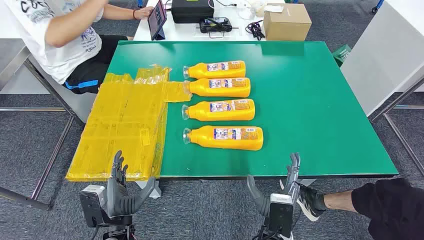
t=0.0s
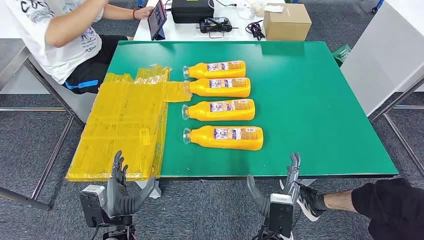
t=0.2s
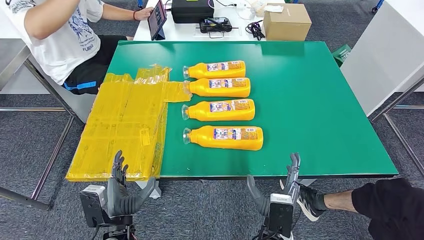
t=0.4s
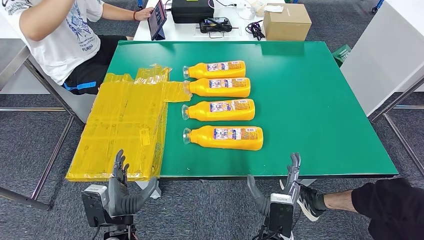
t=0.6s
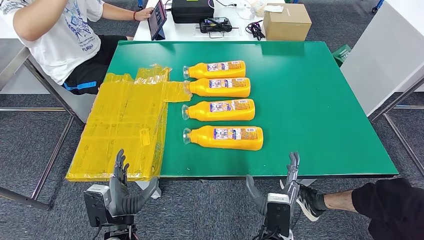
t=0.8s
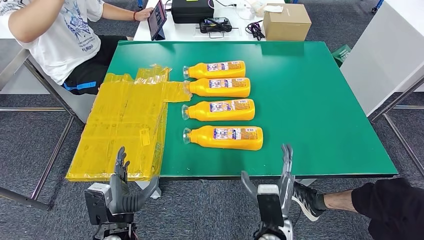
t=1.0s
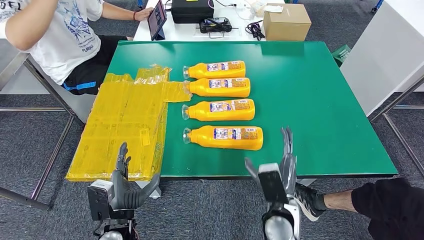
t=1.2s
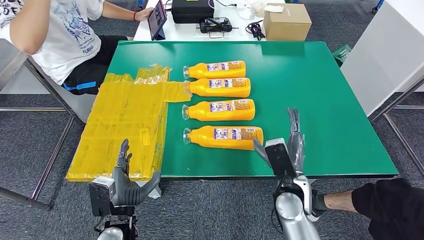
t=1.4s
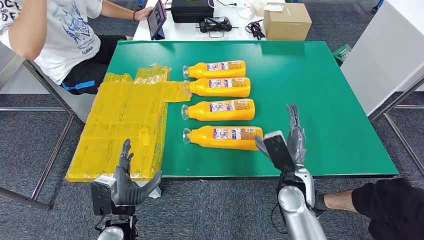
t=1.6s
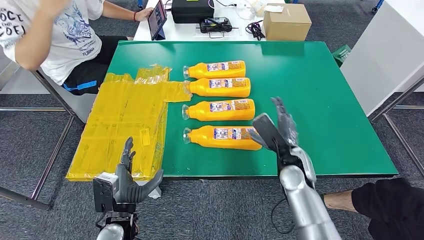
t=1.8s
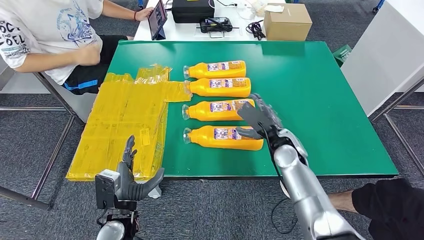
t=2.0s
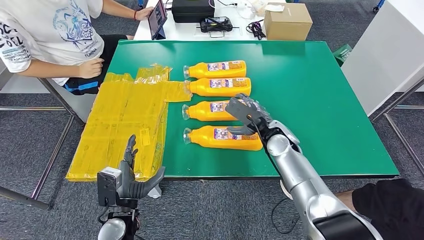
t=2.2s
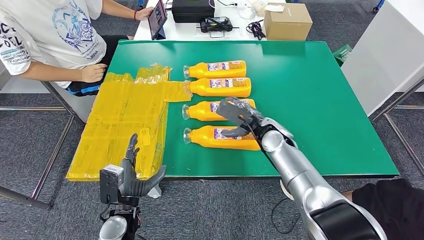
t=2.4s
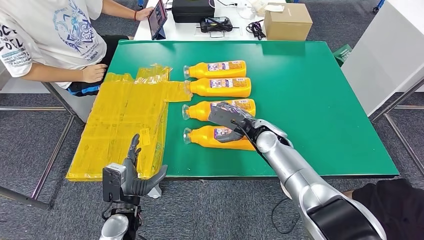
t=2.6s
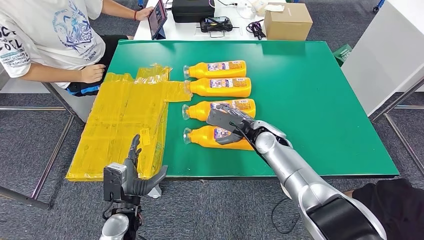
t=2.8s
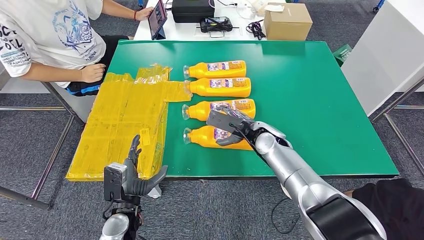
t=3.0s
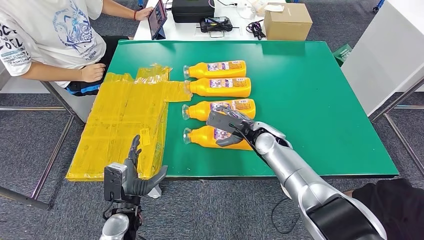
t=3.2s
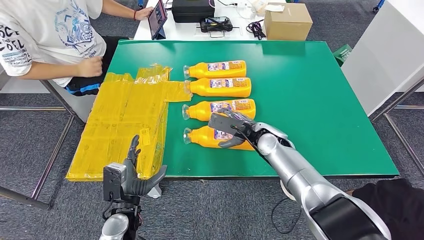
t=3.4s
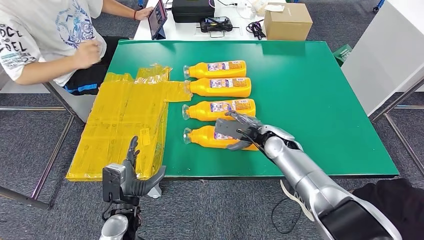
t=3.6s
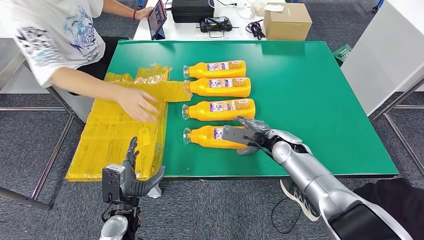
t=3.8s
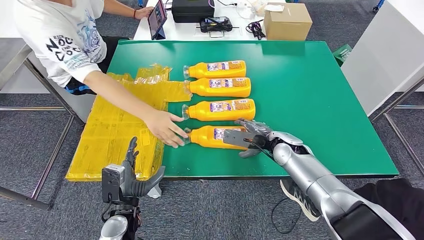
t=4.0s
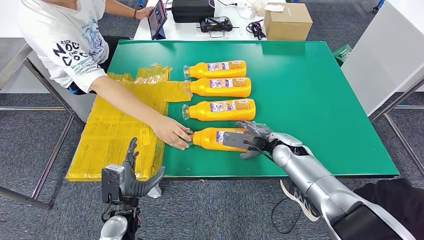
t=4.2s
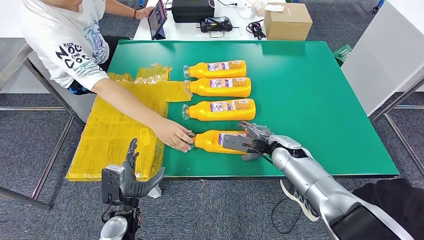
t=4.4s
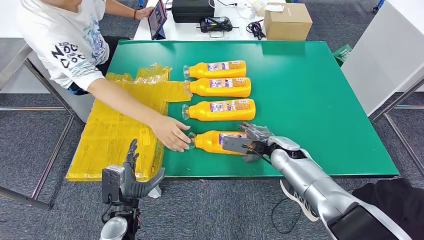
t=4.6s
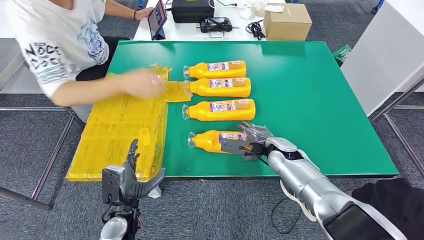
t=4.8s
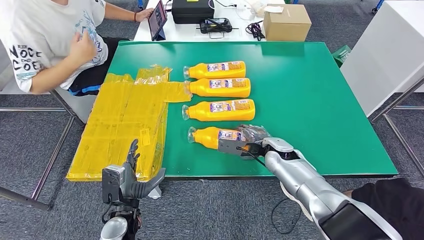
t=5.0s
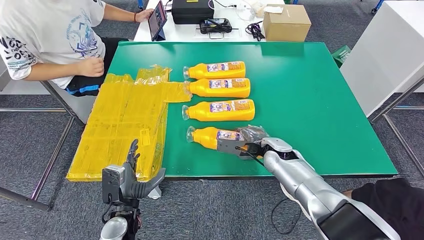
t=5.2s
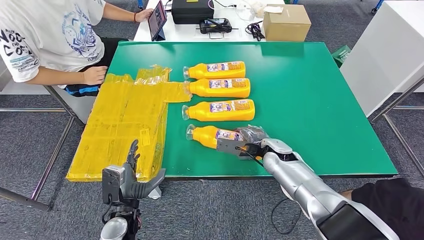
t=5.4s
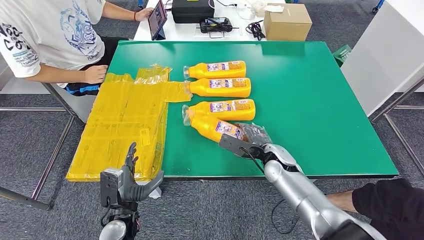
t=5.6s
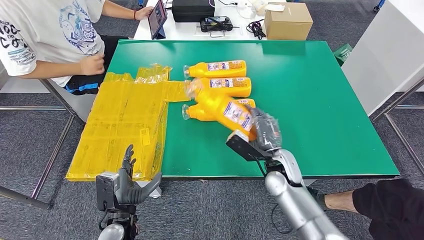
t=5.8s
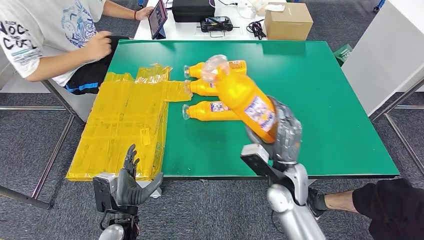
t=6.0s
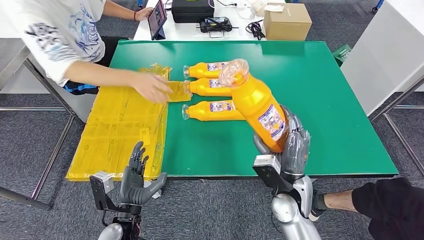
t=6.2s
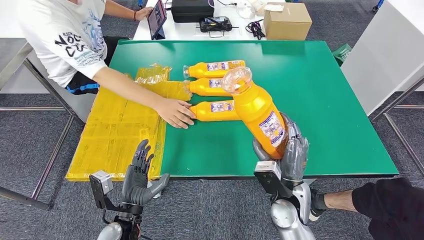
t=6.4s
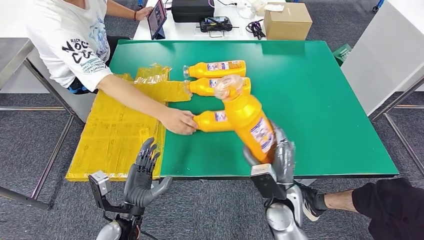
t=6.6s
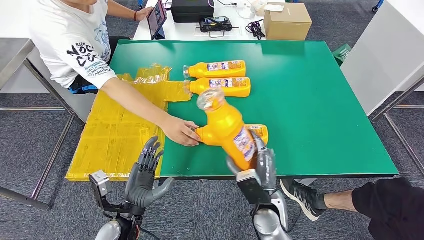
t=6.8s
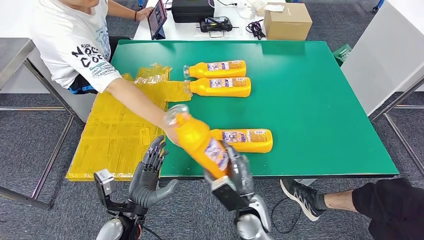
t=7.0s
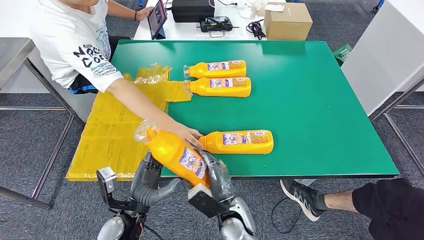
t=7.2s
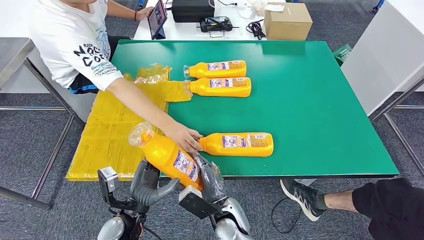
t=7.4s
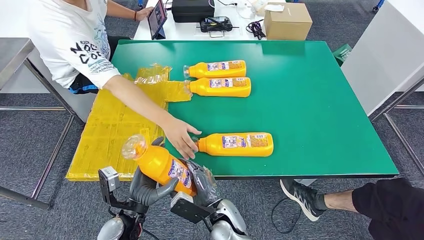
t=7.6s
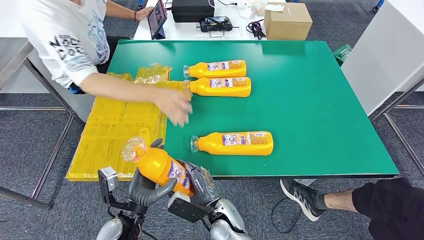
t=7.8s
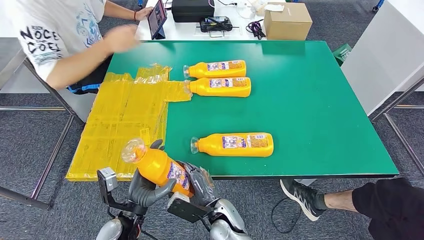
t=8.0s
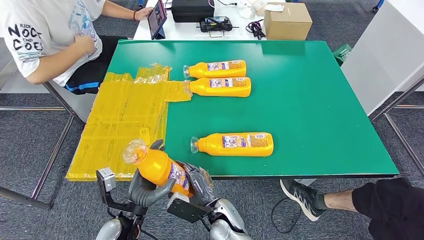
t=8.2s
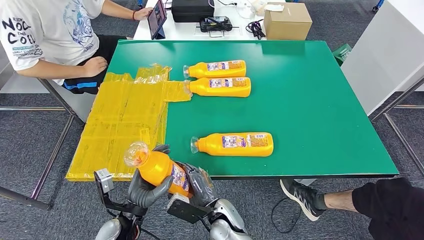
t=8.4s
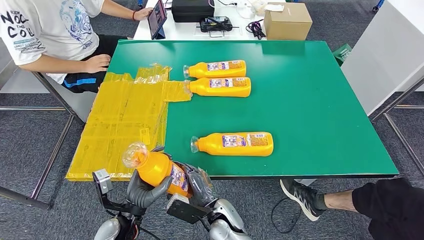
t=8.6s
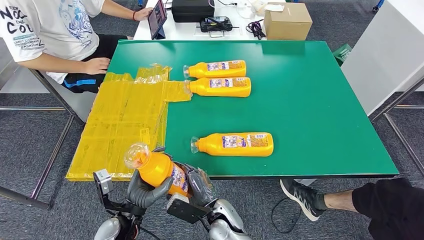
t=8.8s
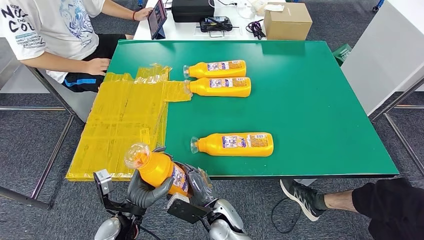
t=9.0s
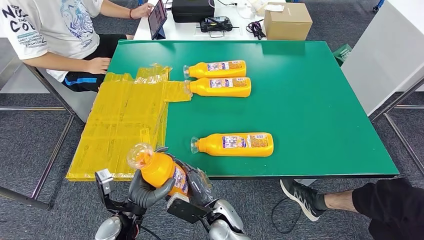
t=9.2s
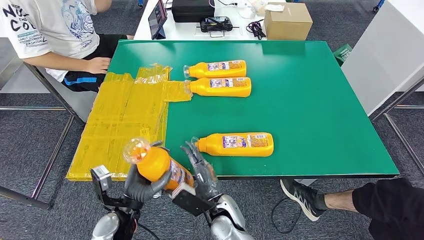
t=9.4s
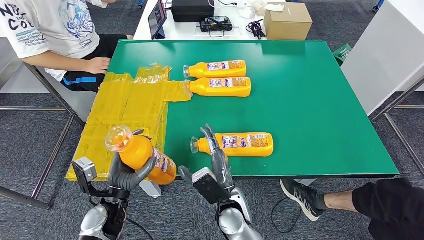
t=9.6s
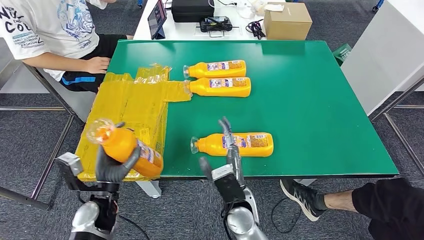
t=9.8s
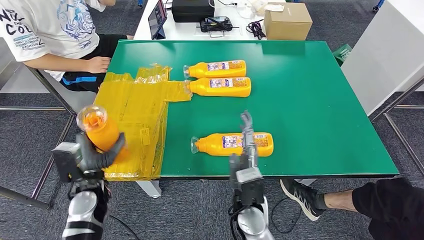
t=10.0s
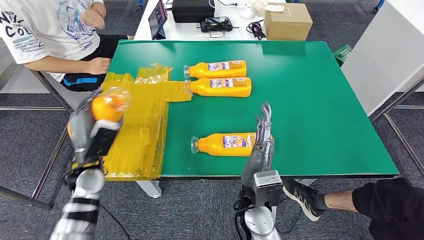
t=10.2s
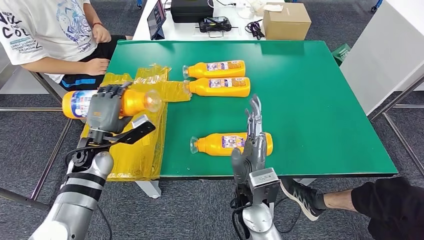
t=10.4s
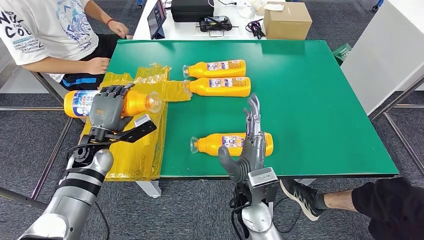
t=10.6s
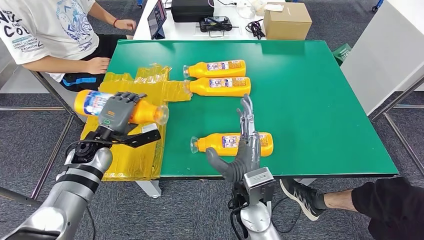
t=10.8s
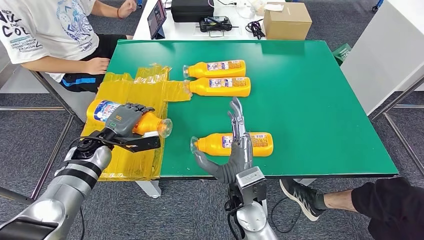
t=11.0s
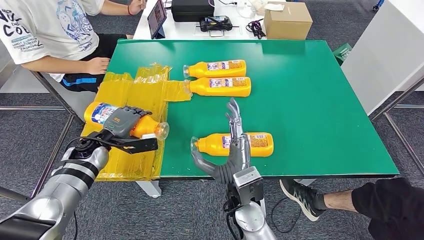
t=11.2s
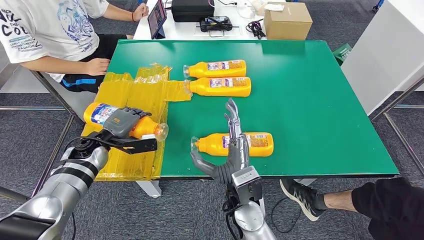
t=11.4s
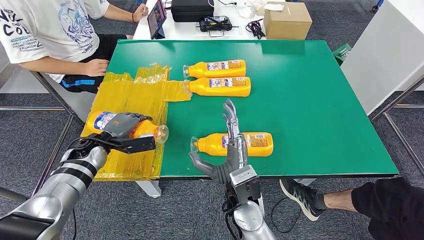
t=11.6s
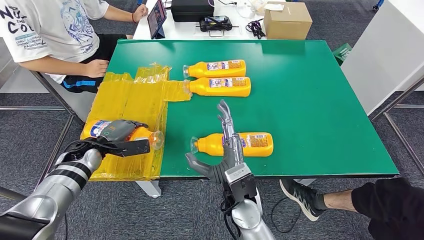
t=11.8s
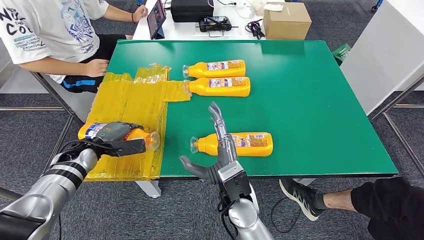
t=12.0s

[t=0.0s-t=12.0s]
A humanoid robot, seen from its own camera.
Step, t=0.0s to t=7.6s: Take the fast-moving consumer goods bottle from the table.
t=1.6s to t=3.0s: The right hand goes roughly 15 cm forward.
t=3.0s to t=4.4s: The right hand travels to the right by some 5 cm.
t=7.6s to t=9.0s: There are only small adjustments of the hands.

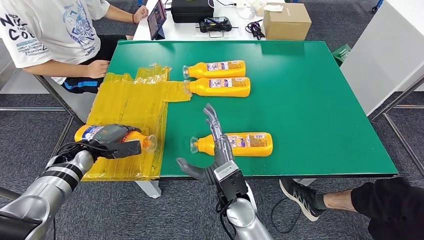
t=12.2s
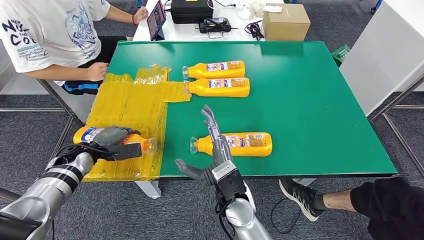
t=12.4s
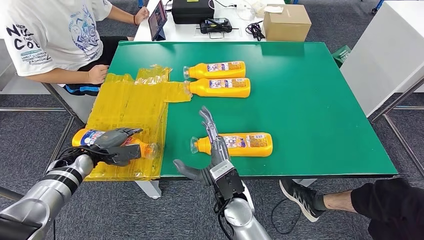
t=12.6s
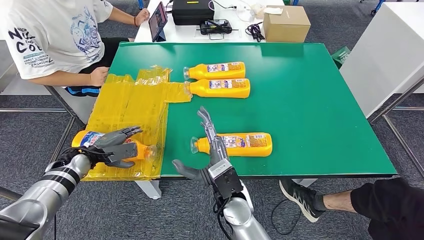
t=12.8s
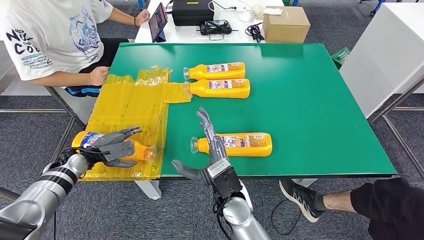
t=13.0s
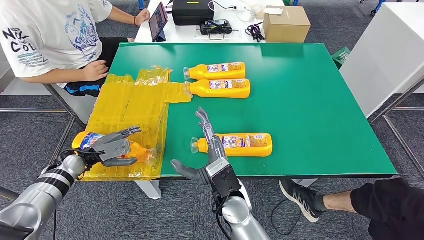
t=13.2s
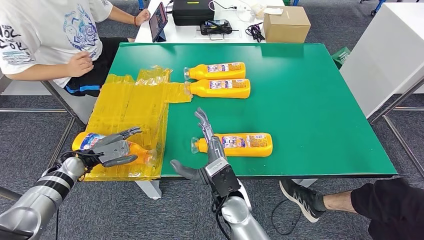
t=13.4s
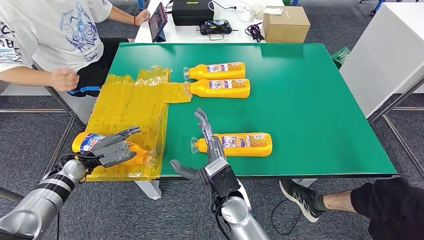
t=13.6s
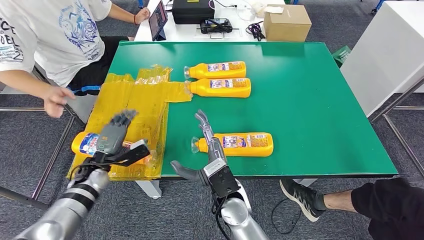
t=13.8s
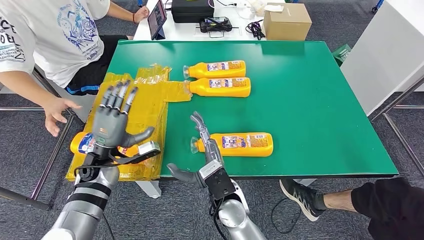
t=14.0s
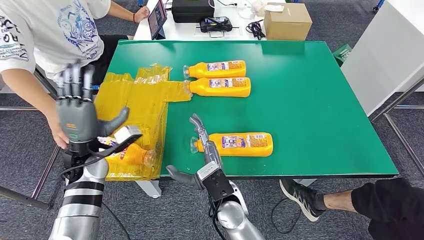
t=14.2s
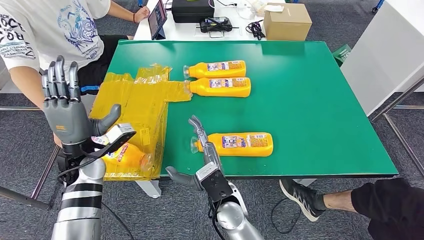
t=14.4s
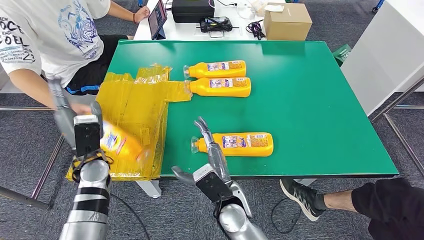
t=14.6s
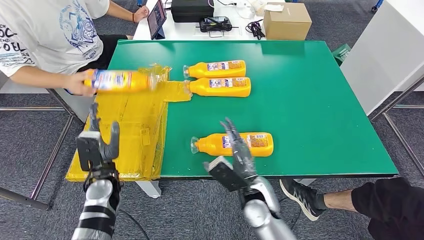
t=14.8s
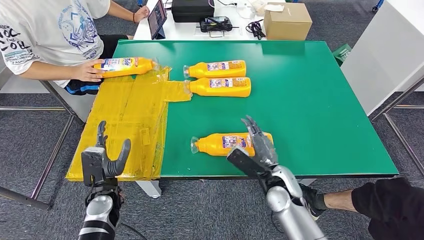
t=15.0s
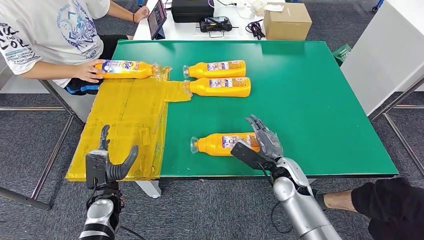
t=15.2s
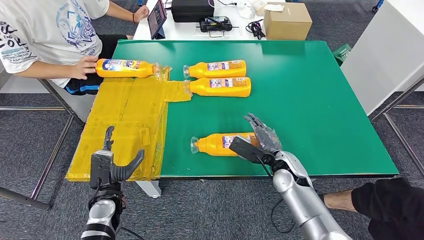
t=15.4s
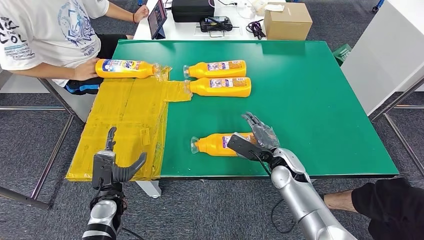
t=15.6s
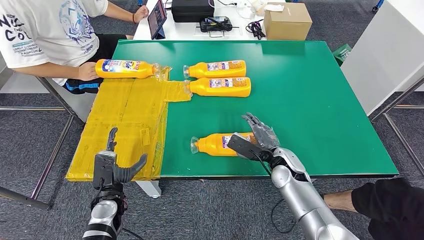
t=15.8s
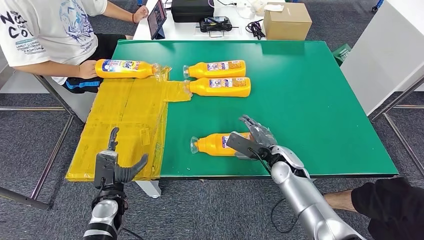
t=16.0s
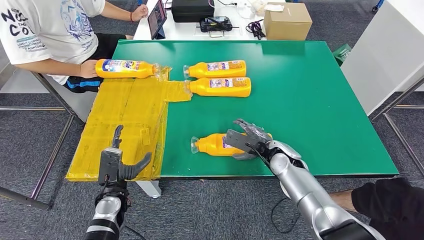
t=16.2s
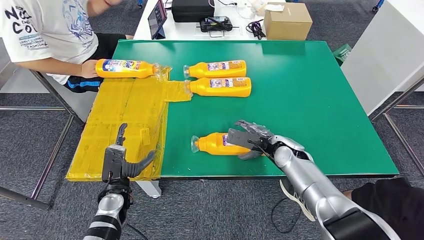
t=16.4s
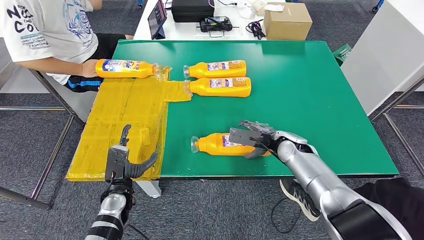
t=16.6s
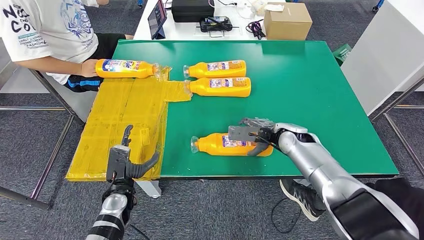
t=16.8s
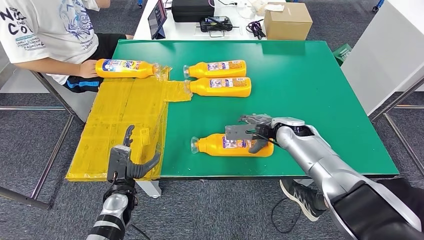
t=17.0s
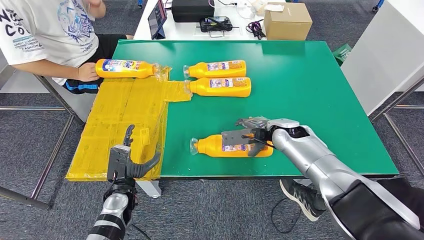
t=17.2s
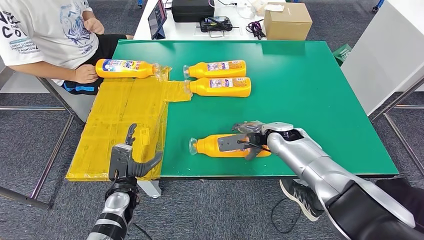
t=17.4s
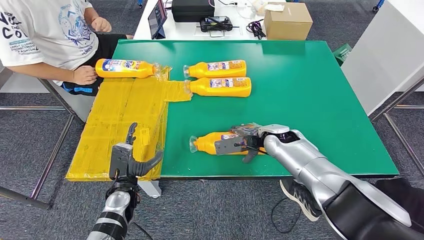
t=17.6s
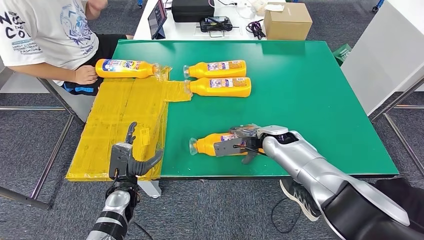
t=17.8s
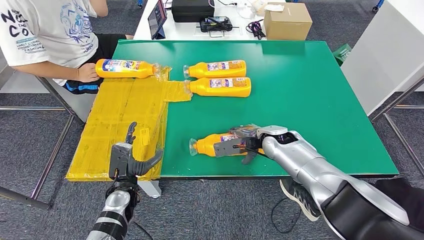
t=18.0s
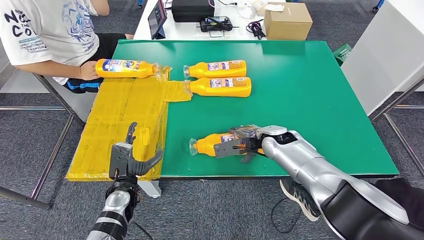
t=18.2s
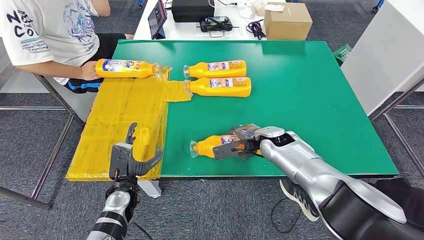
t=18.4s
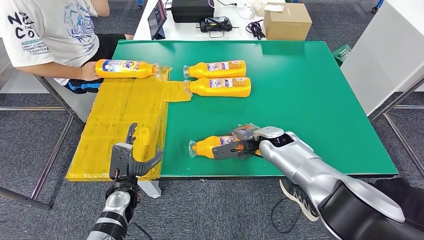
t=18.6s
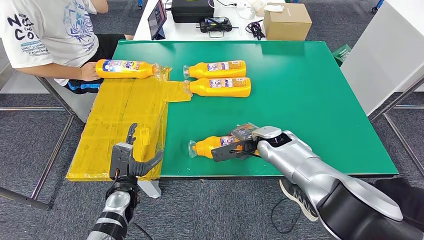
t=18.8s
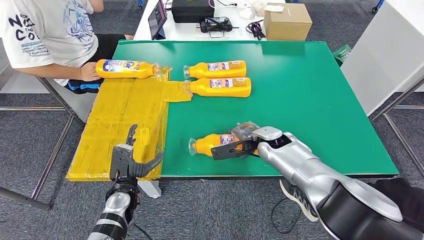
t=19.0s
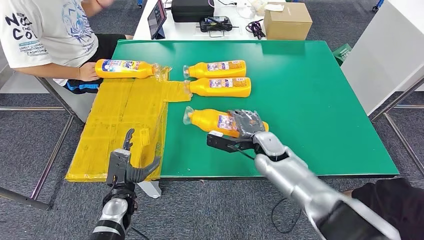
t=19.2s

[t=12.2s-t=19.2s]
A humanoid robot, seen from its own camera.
Step, t=12.2s to t=14.8s: Flip the fast-moving consumer goods bottle to the front side.
t=15.0s to t=16.4s: The right hand heads forward and to the right, covering roughly 10 cm.
